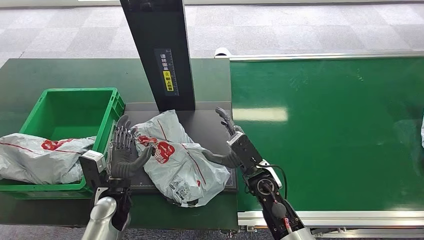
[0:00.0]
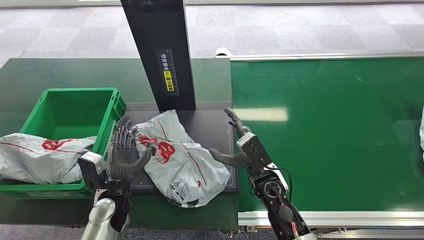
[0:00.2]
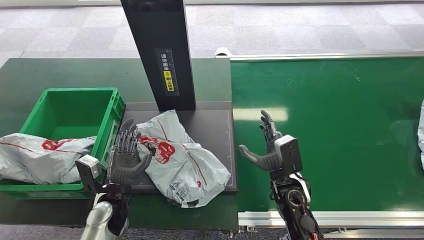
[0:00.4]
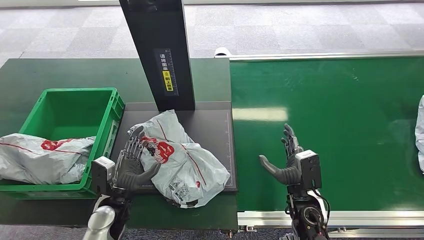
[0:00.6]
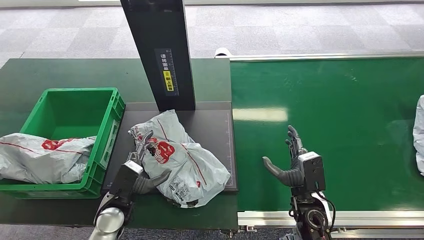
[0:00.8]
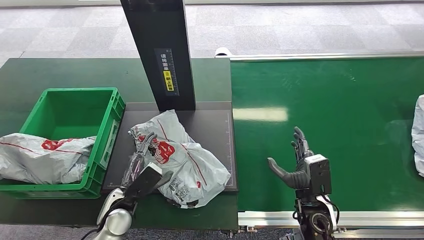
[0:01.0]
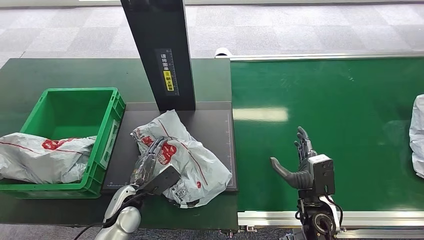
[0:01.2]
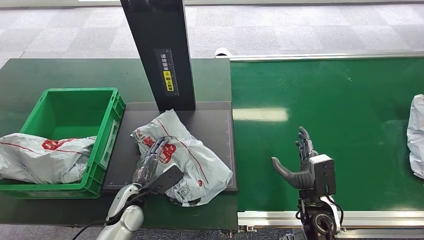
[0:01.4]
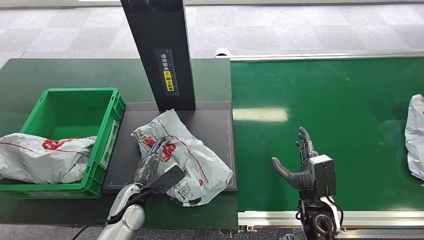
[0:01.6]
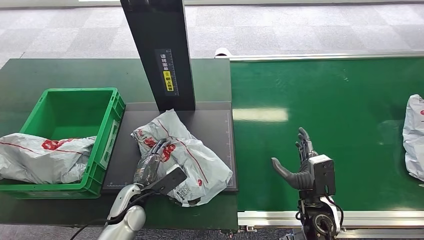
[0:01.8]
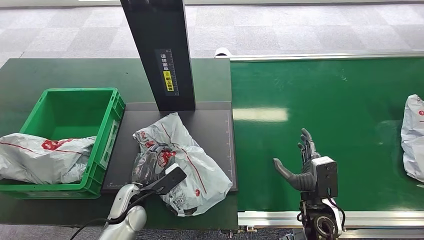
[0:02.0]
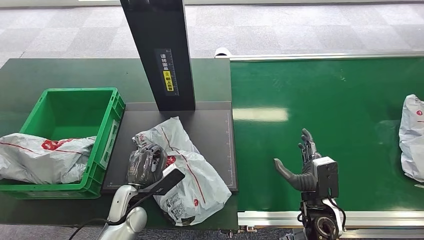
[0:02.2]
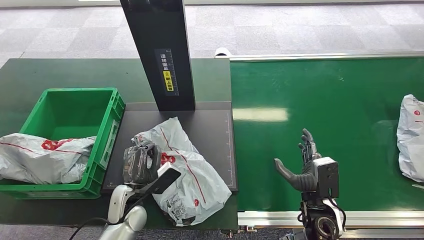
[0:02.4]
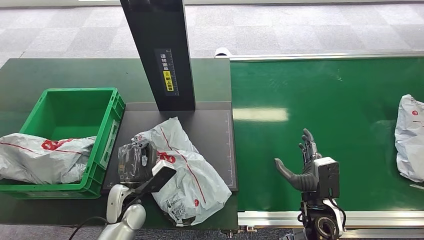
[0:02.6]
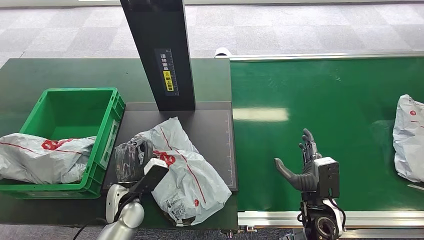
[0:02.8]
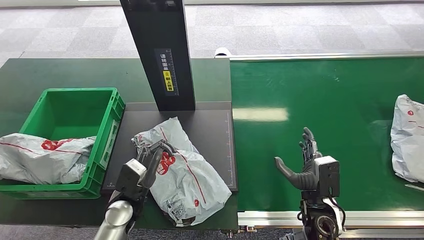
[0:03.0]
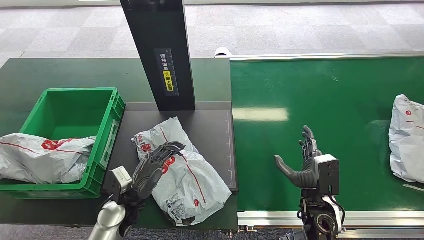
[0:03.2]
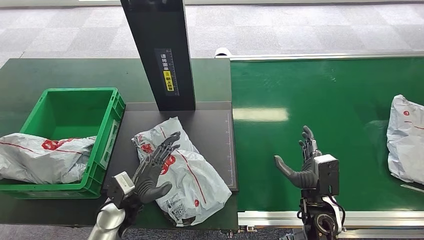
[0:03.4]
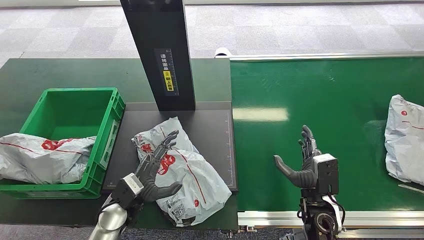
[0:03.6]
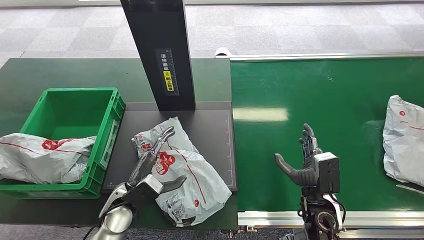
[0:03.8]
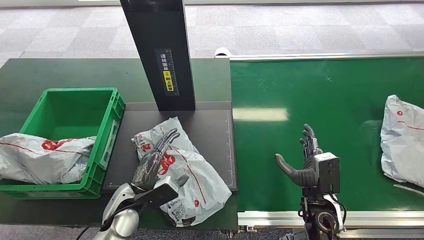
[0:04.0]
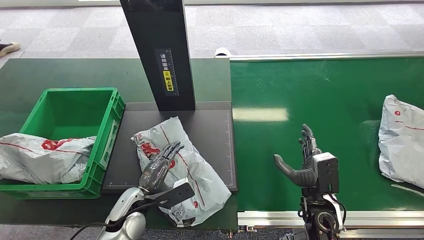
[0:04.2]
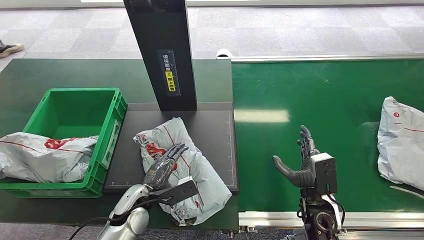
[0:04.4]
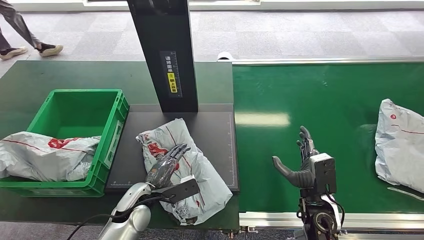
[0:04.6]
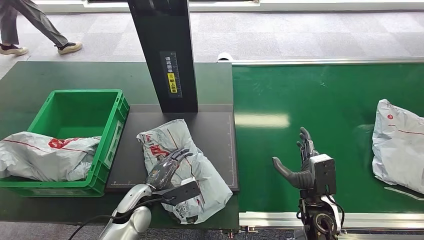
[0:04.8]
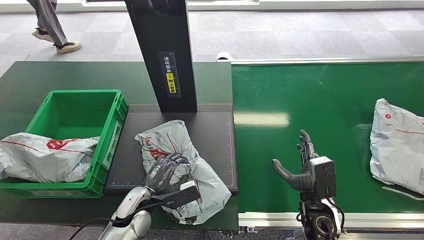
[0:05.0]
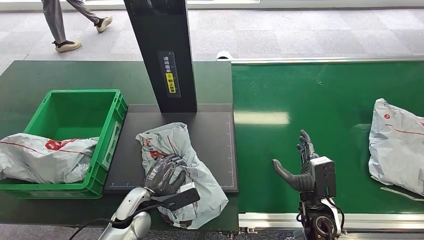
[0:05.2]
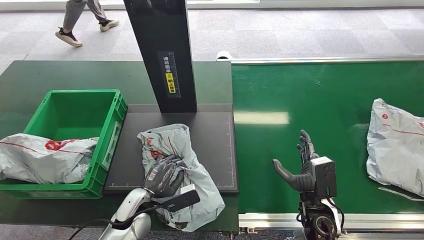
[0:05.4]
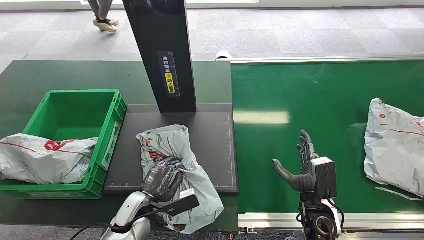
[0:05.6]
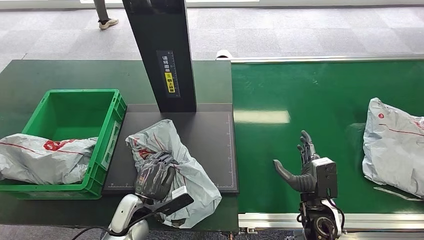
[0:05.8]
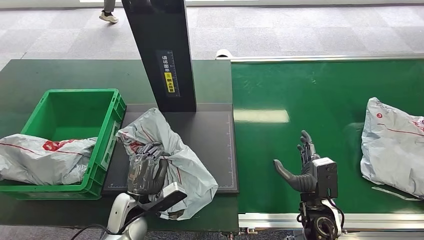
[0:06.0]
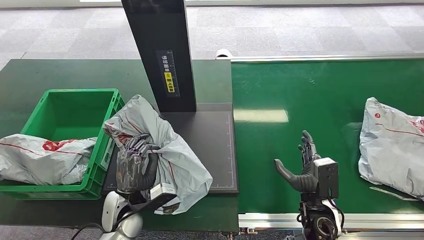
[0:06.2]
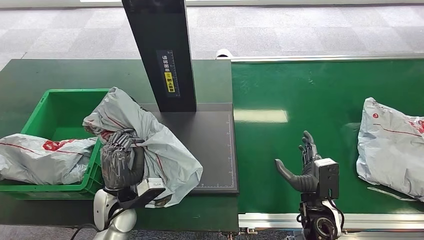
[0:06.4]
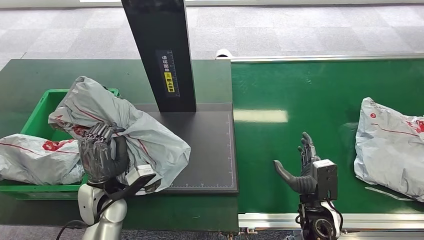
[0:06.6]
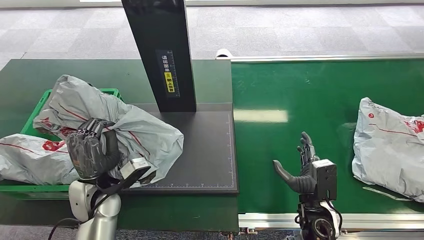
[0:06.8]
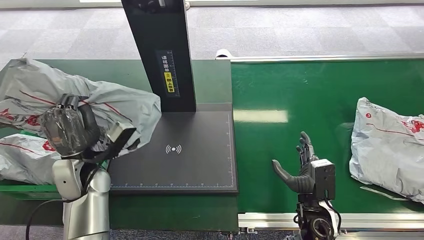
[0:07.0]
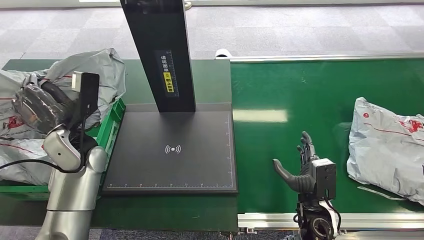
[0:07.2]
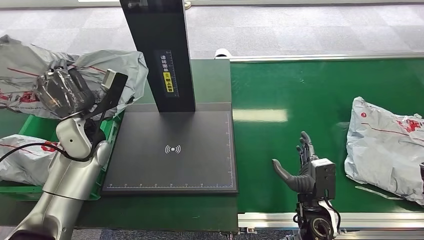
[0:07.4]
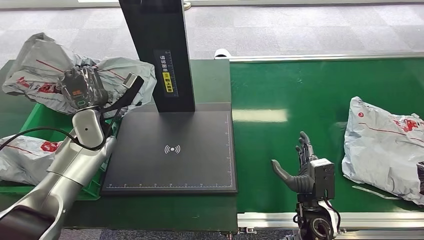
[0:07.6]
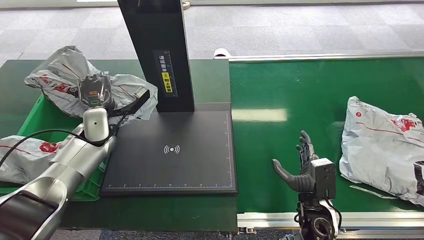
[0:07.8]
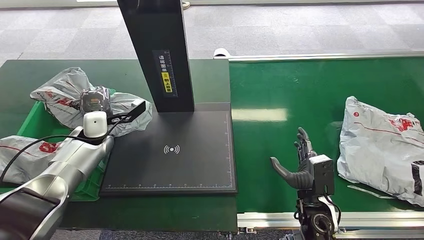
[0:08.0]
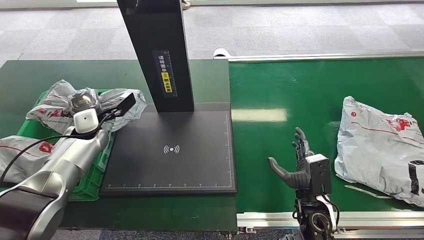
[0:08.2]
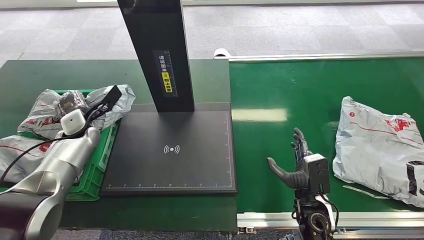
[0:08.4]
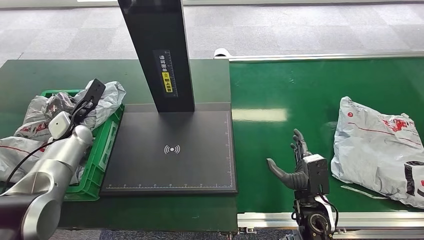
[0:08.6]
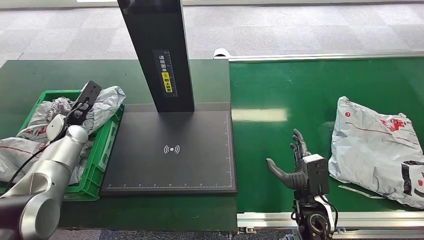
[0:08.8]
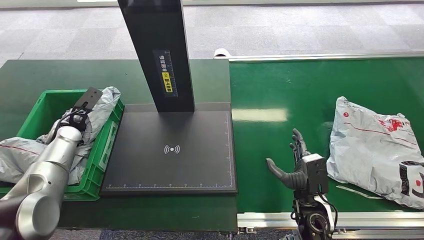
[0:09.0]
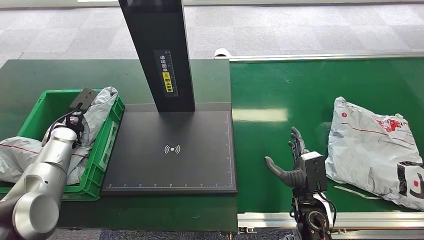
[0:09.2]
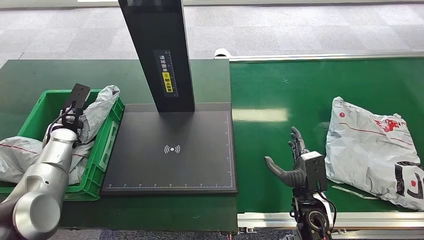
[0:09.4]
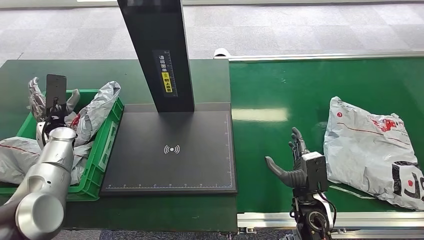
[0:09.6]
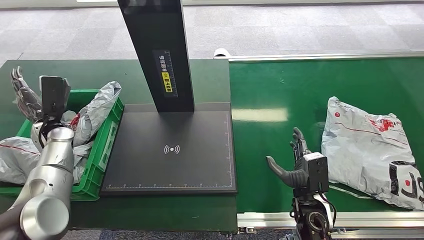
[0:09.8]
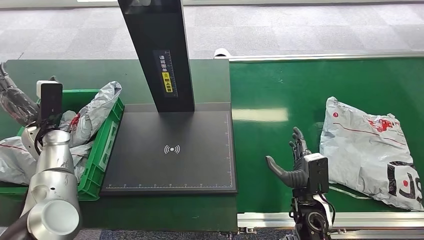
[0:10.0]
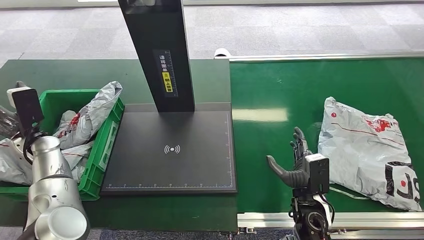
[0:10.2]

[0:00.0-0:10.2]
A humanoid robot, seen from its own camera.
Step, 0:01.0 to 0:06.6: Pick up the package from the inbound machine.
Step, 0:07.0 to 0:10.2: Place the package into the parcel locker.
0:00.0 to 0:01.4: The right hand heads to the right and backward, covering about 15 cm.
